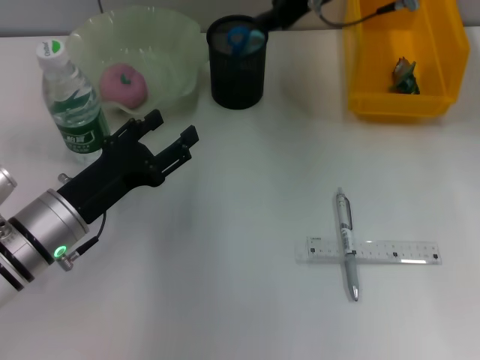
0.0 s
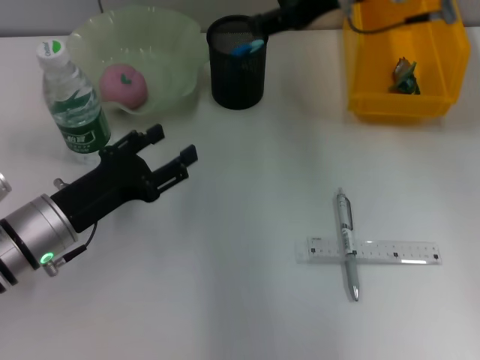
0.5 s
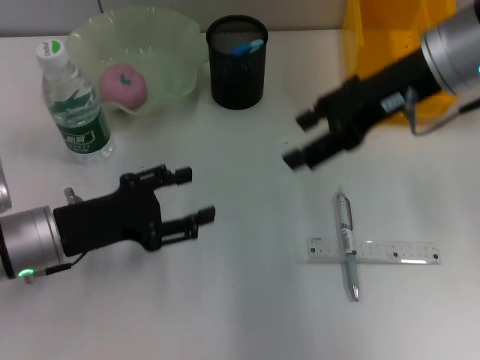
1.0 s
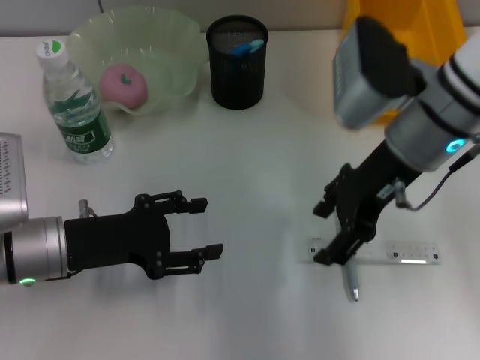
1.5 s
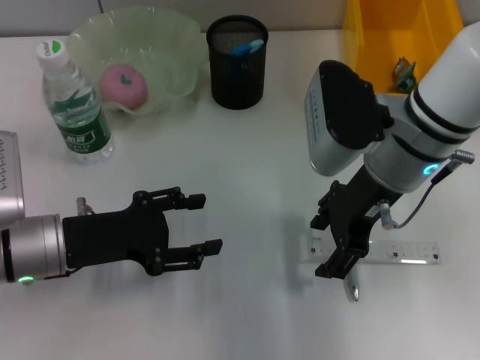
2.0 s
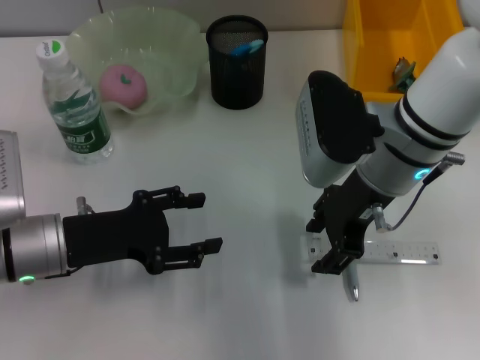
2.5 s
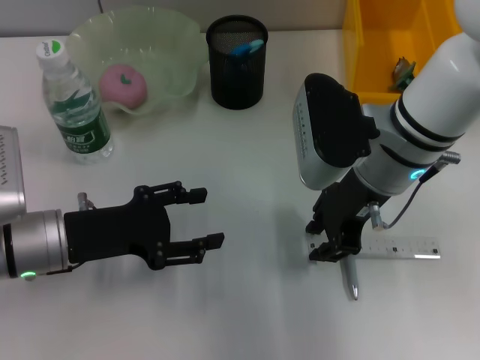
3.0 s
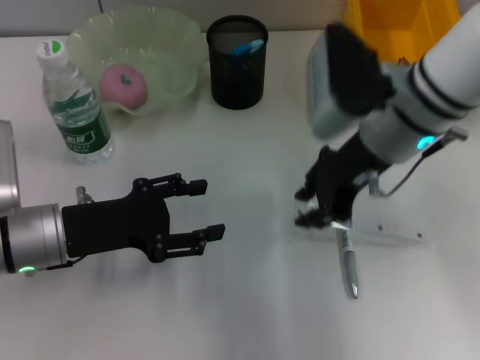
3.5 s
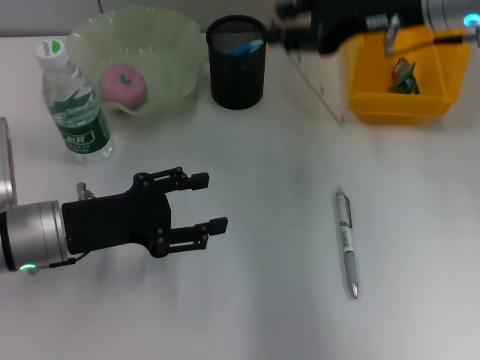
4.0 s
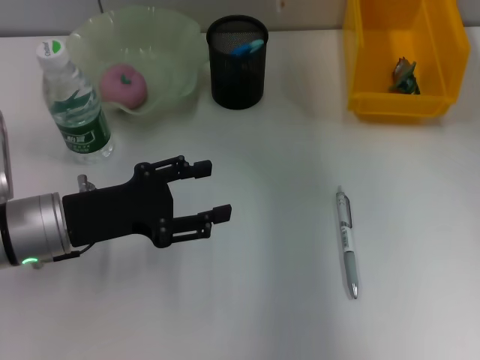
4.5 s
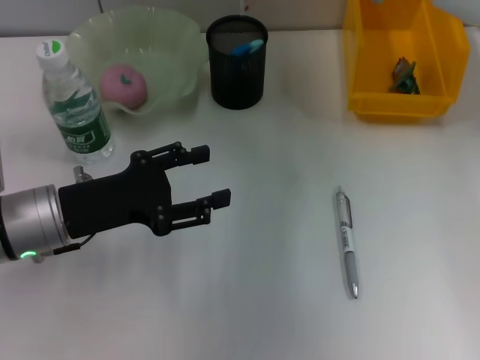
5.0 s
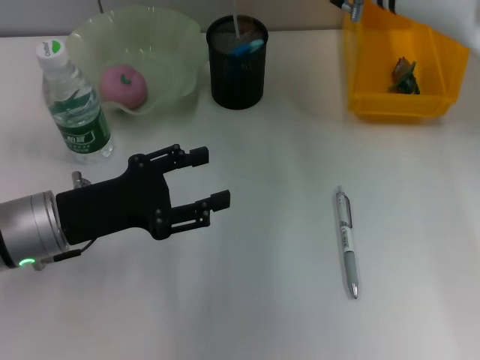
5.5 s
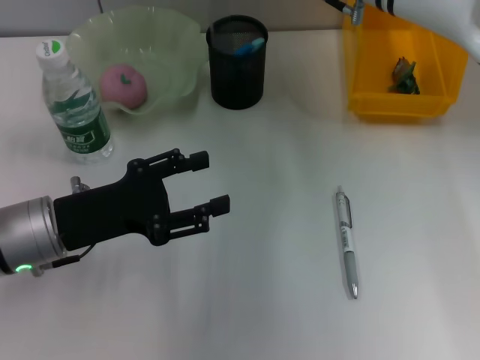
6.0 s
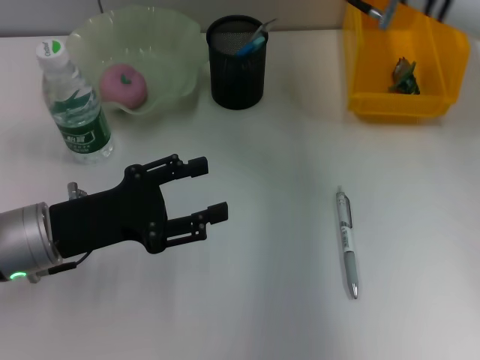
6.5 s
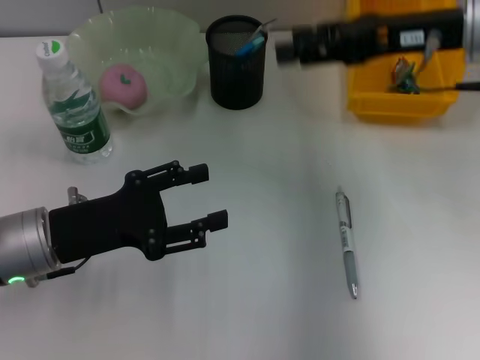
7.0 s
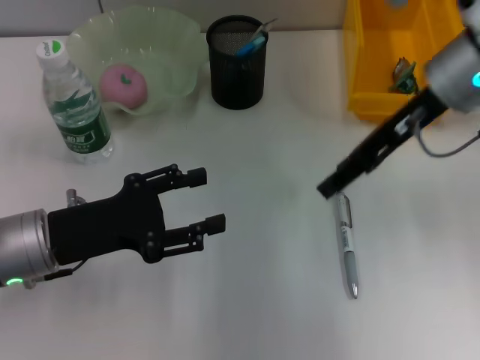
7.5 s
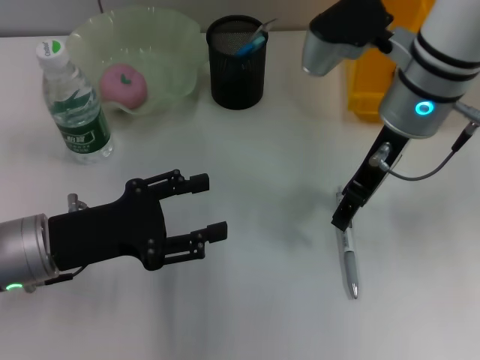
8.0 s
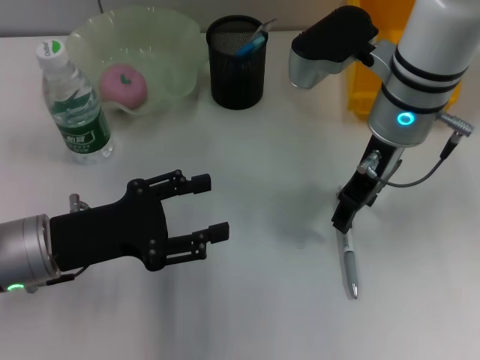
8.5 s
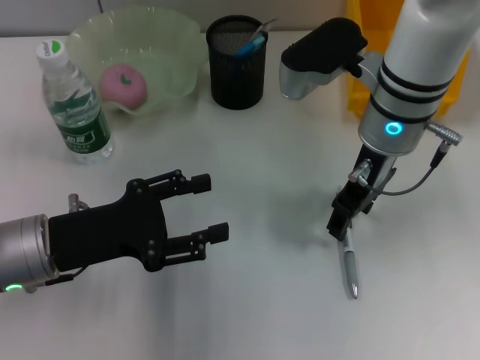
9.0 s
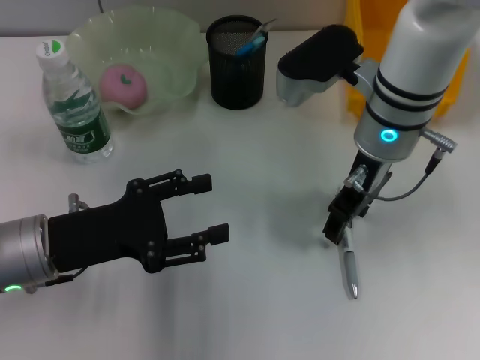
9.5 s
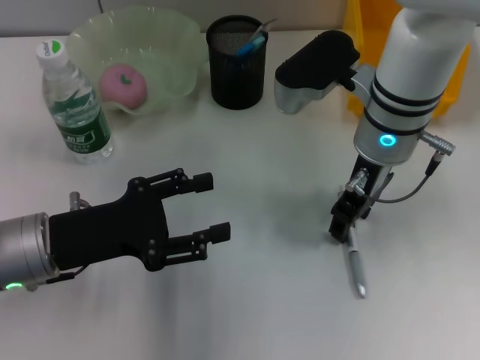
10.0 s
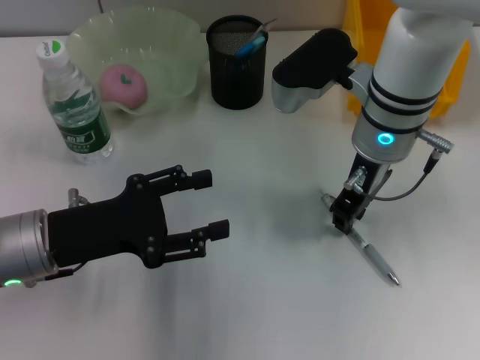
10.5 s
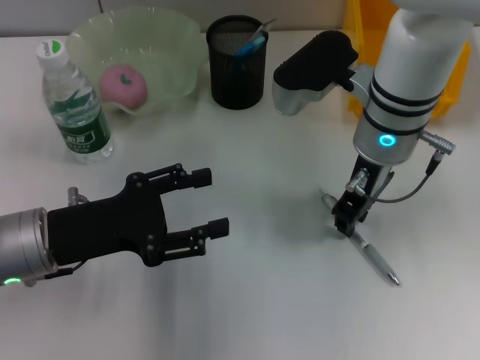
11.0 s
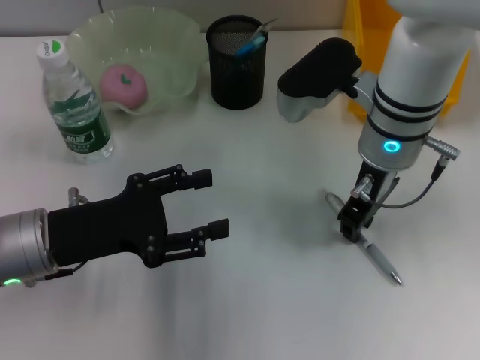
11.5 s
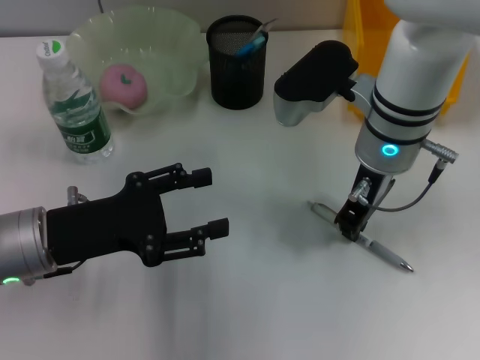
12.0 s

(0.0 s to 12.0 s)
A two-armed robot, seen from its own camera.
Step, 0.0 s - 2.5 s: Grab the ruler with the right hand.
Step, 3.0 s - 6.0 s: Place the ruler into the pen holder with the right hand.
0.0 s - 2.0 s: The right gripper is displaced backward and downward by some 15 cm, and opens up.
2.0 s - 4.0 s: The right gripper heads upward, forward and to the right, covering about 10 cm, and closes up.
4.0 s - 6.0 s: The right gripper shifts about 10 cm forward, to the left and downward.
6.0 s - 8.0 s: The right gripper shifts some 10 cm backward, and moves approximately 10 cm to the right and comes back.
8.0 s - 10.0 s: The grippers make only small movements.
10.0 s - 12.0 s: The right gripper closes its fingers.

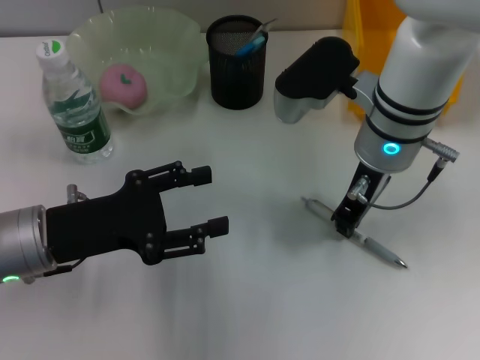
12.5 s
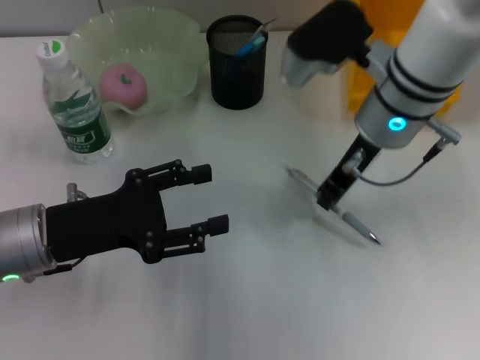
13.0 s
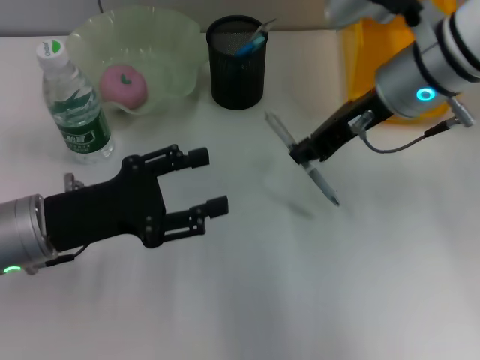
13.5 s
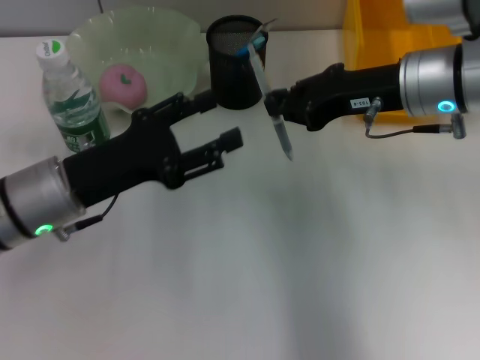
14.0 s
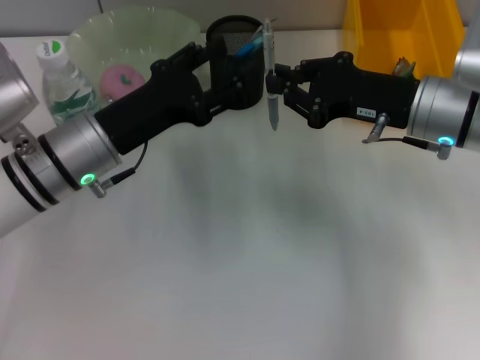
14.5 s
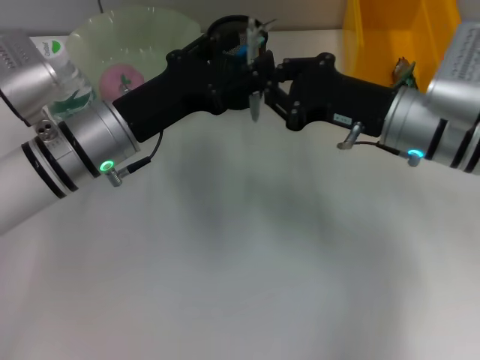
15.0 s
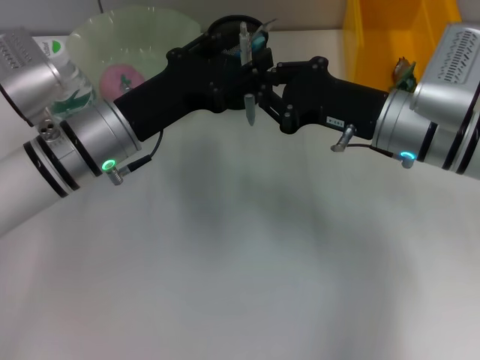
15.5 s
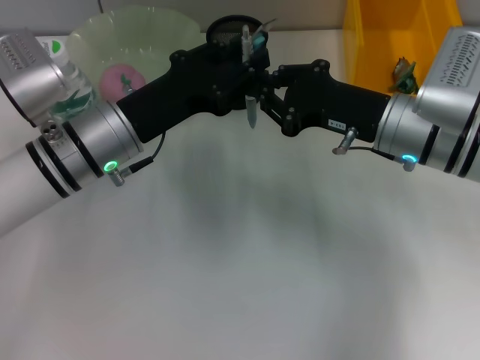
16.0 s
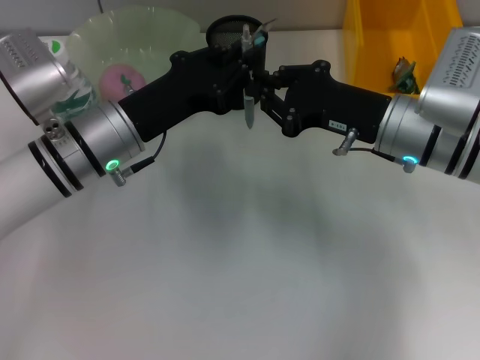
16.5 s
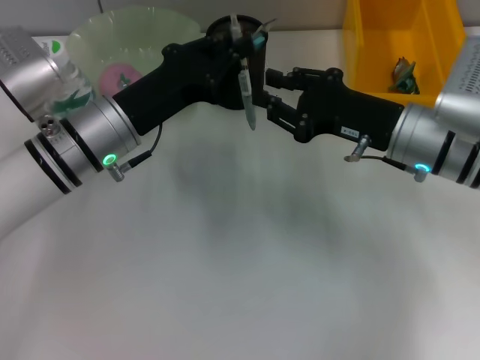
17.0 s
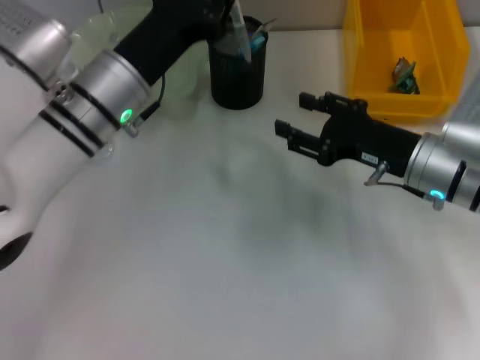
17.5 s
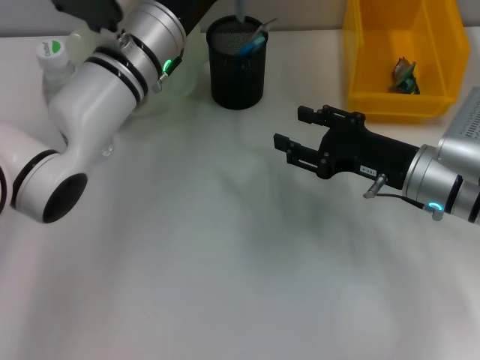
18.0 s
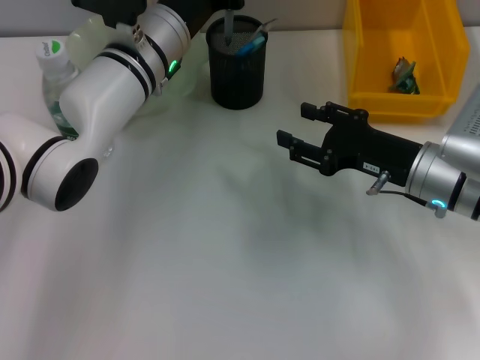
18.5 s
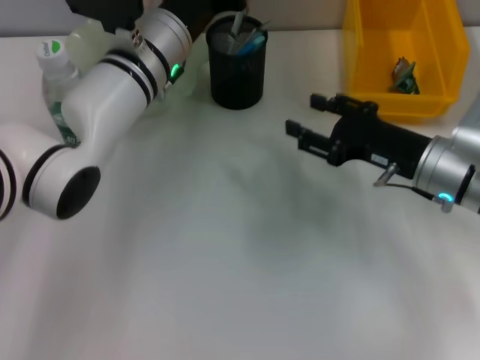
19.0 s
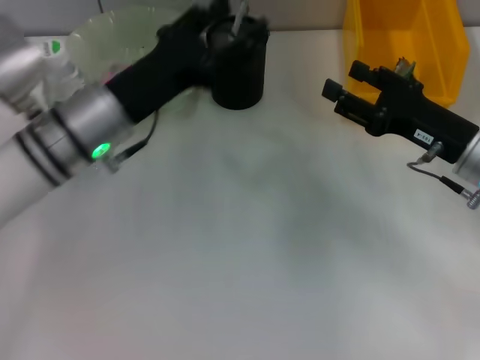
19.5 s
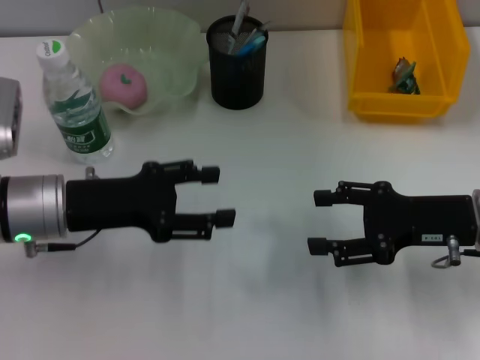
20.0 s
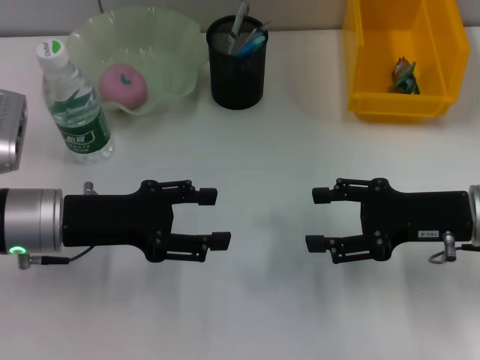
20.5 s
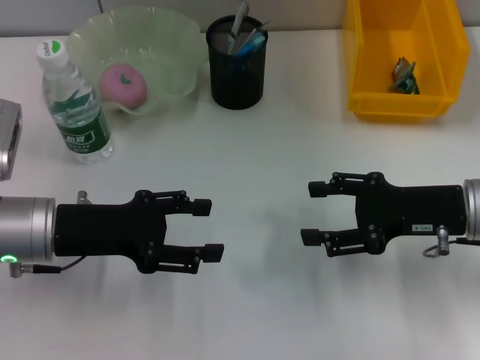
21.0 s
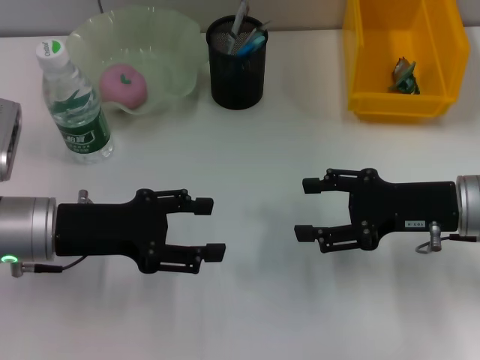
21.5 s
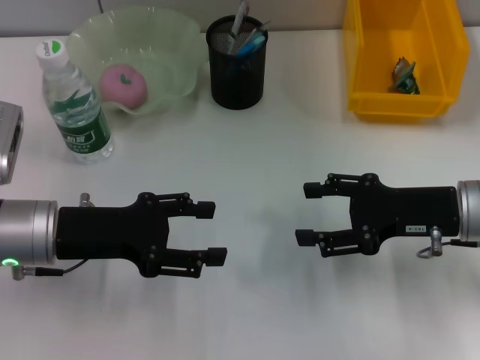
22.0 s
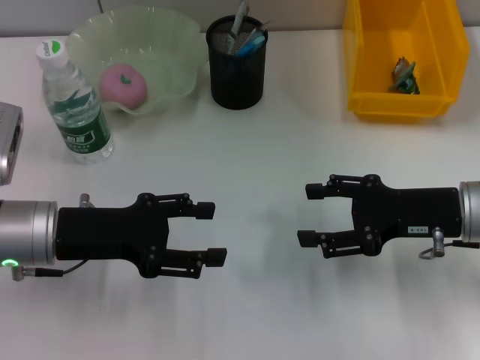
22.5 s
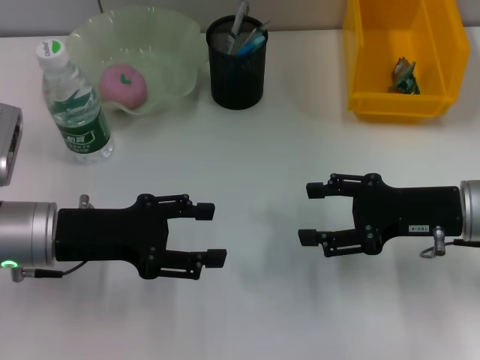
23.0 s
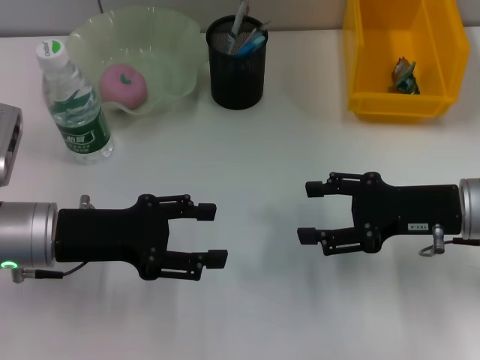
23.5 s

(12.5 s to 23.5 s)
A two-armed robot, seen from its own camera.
Step, 12.5 s - 17.0 s: Pass the gray spring-action pen from the right hand to the left hand.
Step, 17.5 s - 19.0 s: Place the gray spring-action pen into the pen holder with the left hand.
12.5 s - 14.5 s: The left gripper is displaced forward and to the right by roughly 10 cm. Meanwhile the right gripper travels to the right by approximately 10 cm.
14.5 s - 16.0 s: The left gripper closes up.
16.0 s - 18.0 s: The right gripper ends up approximately 5 cm from where it was, and opens up; the left gripper is displaced forward and to the right by approximately 10 cm.
18.0 s - 20.0 s: The left gripper shifts roughly 15 cm to the left and backward, and opens its fingers; the right gripper ends up approximately 5 cm from where it was.
20.0 s - 21.5 s: There are only small adjustments of the grippers.
21.5 s - 23.5 s: Neither gripper changes place.

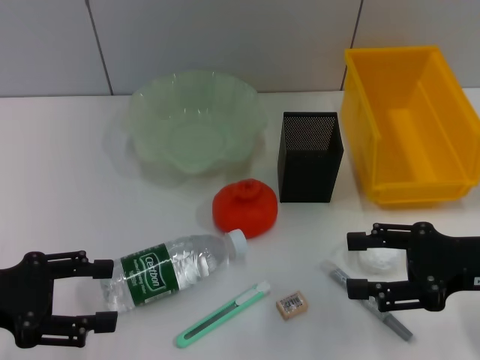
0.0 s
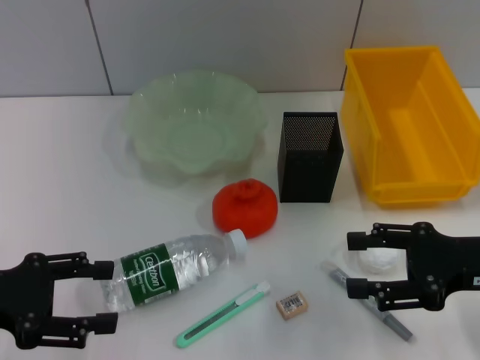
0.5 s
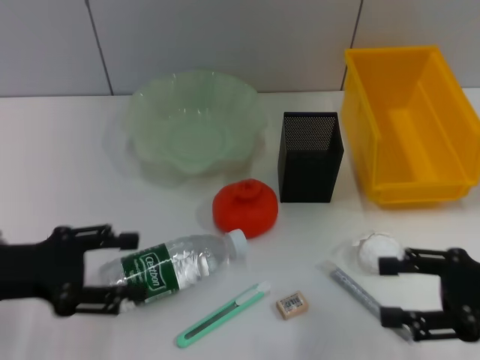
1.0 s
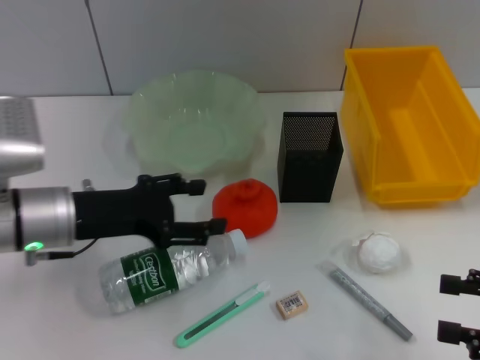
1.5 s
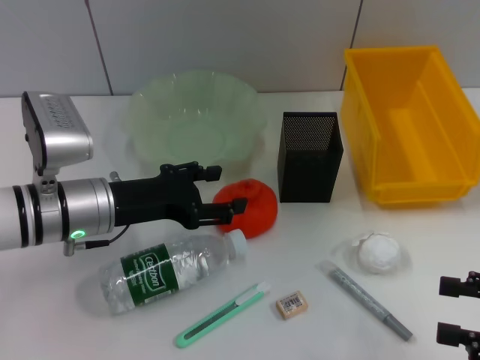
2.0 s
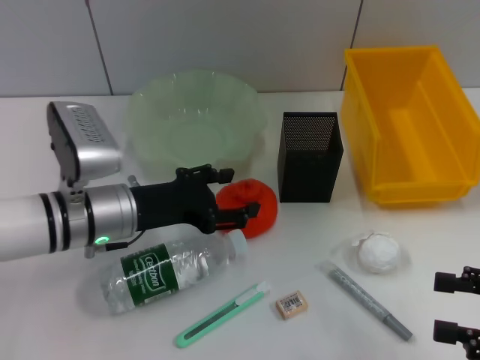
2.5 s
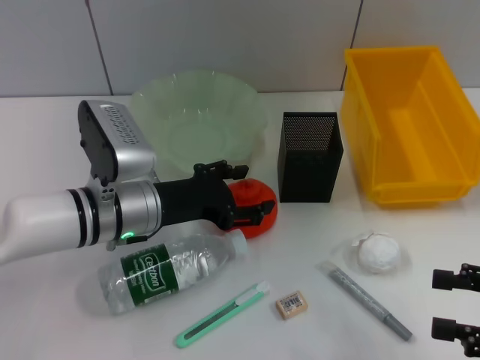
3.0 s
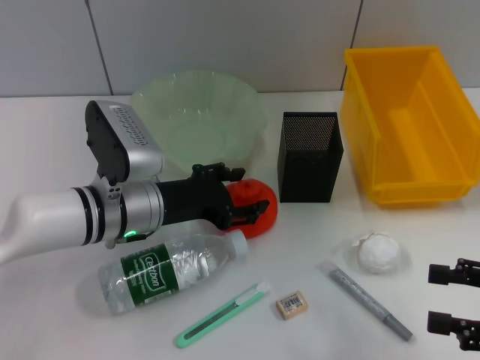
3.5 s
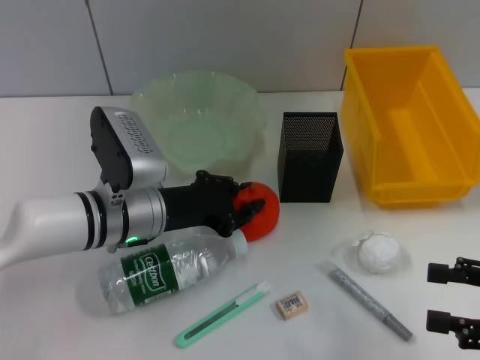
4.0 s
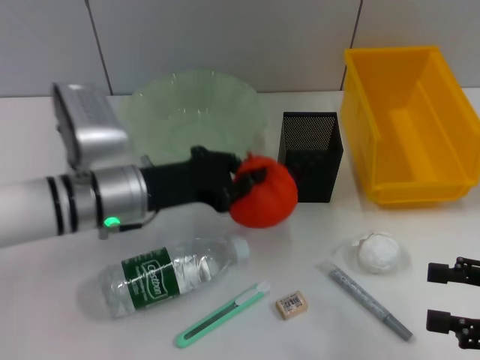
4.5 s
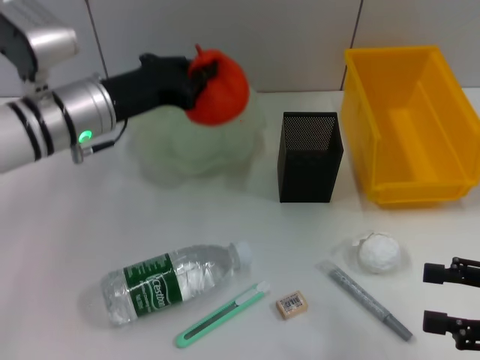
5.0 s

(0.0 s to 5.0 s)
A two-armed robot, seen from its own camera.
Step, 0.0 s - 4.0 s: Grab the orange with the left hand.
0.0 s - 2.5 s: The left gripper is displaced to the right and forward by about 20 cm; the right gripper shifts some 10 cm backward and to the right.
2.5 s - 5.0 s: The left gripper travels upward and forward by some 10 cm, and closes.
